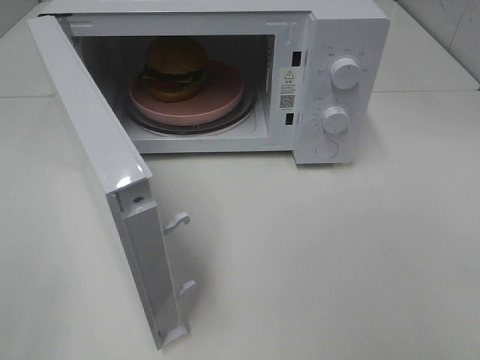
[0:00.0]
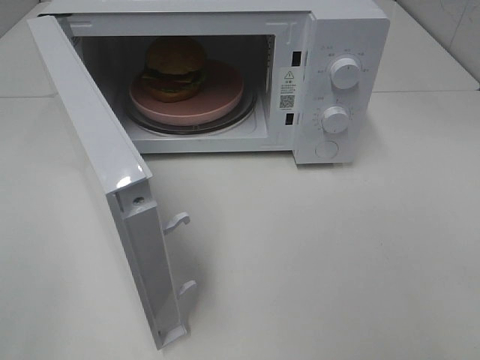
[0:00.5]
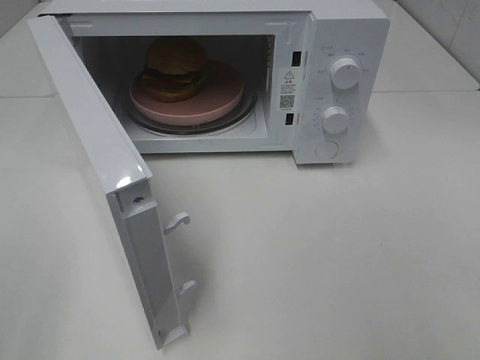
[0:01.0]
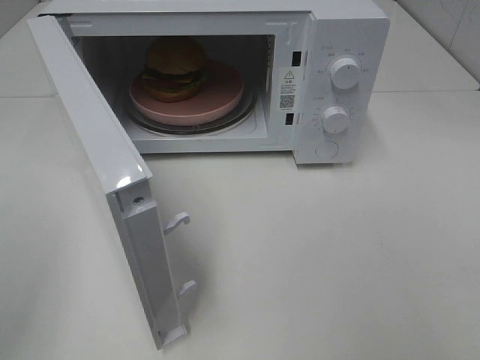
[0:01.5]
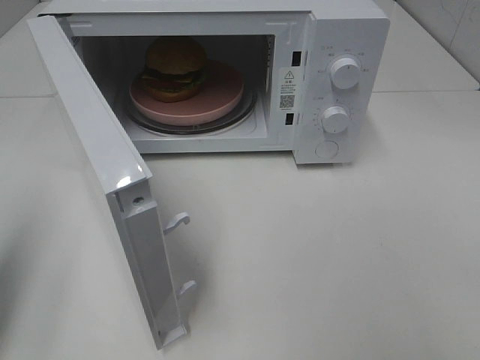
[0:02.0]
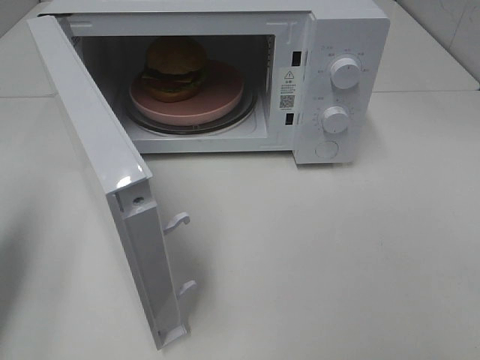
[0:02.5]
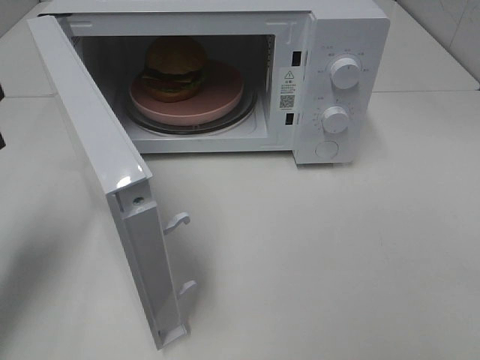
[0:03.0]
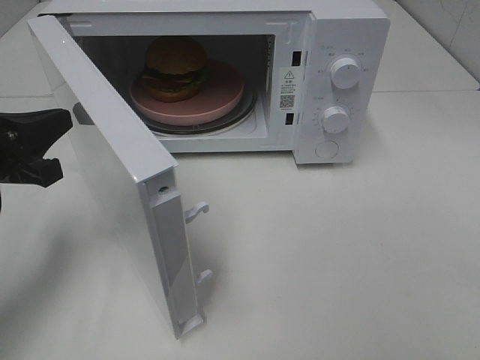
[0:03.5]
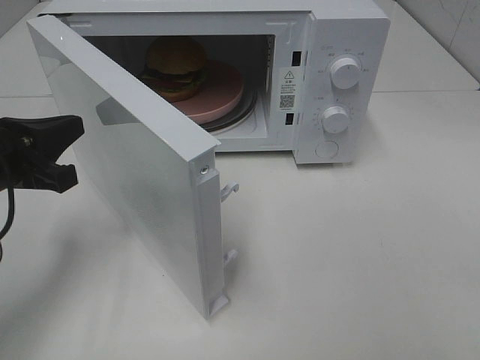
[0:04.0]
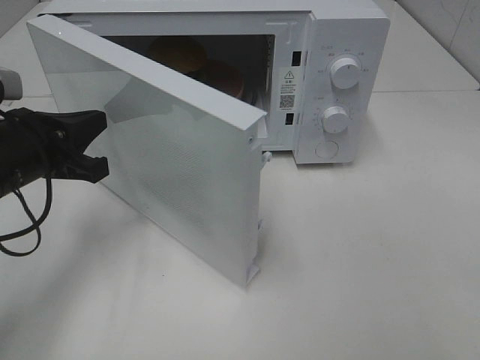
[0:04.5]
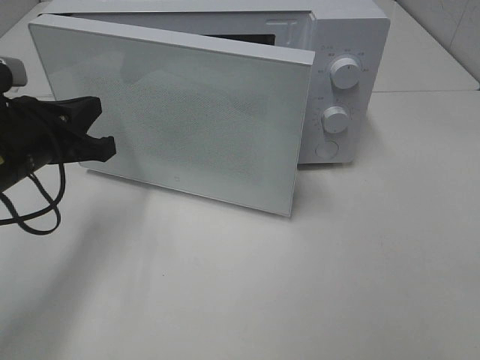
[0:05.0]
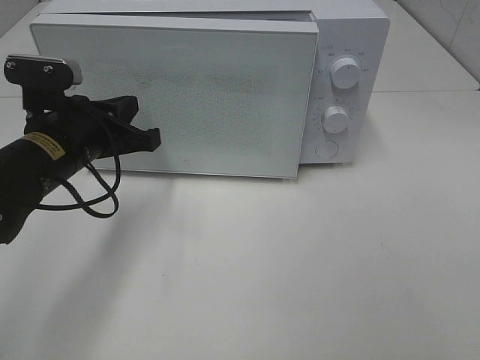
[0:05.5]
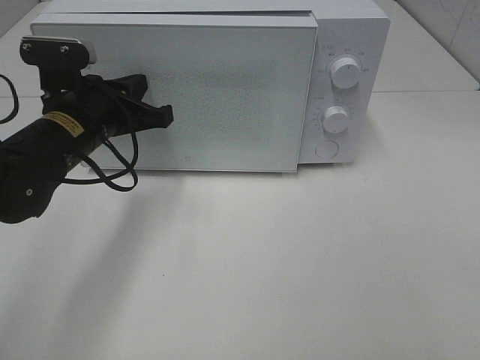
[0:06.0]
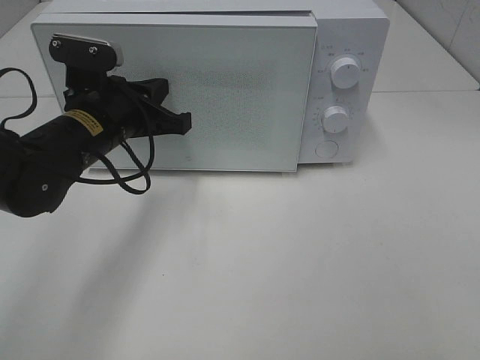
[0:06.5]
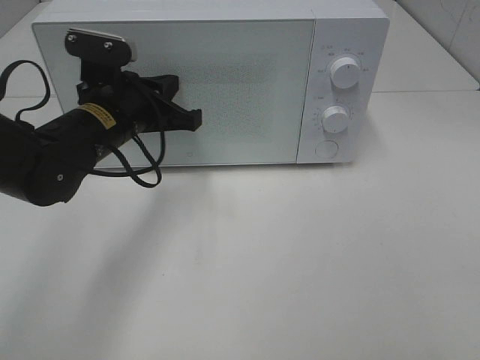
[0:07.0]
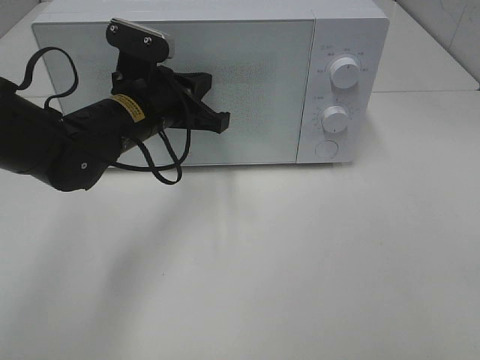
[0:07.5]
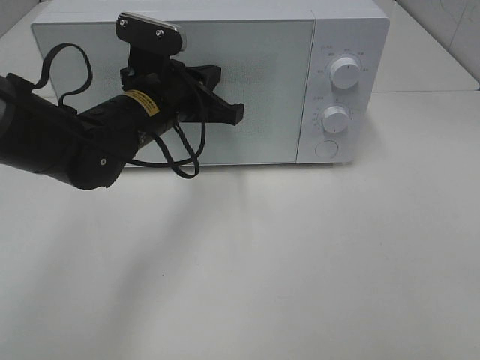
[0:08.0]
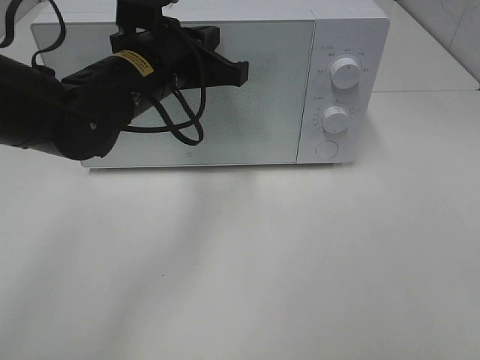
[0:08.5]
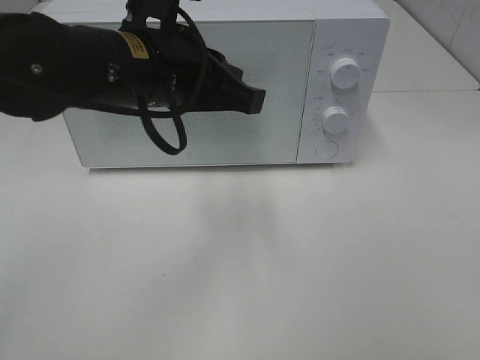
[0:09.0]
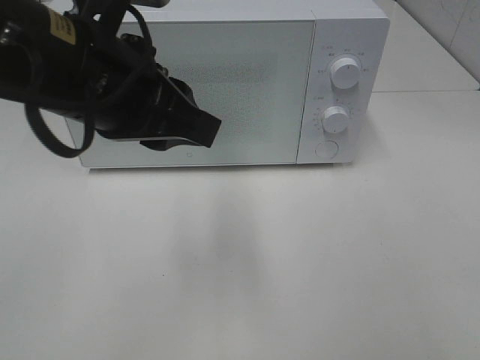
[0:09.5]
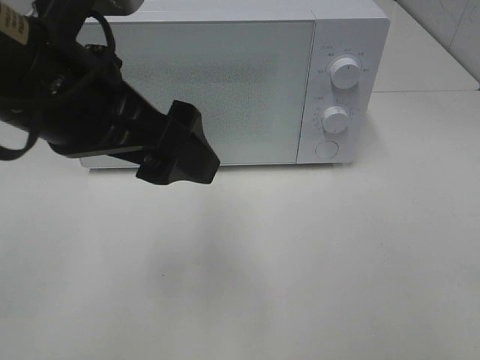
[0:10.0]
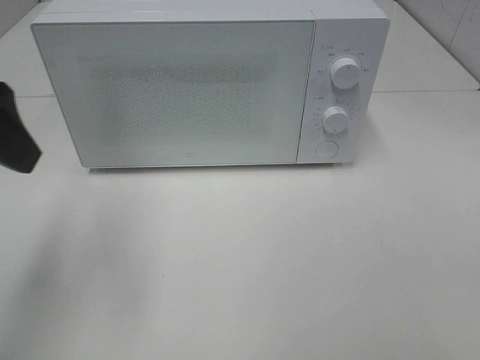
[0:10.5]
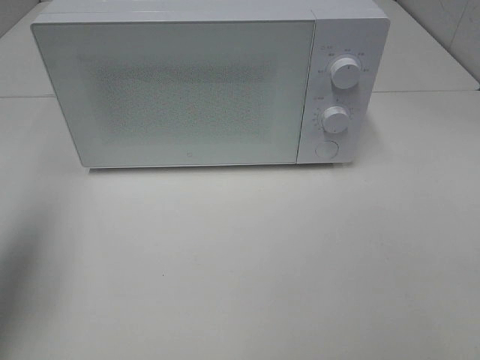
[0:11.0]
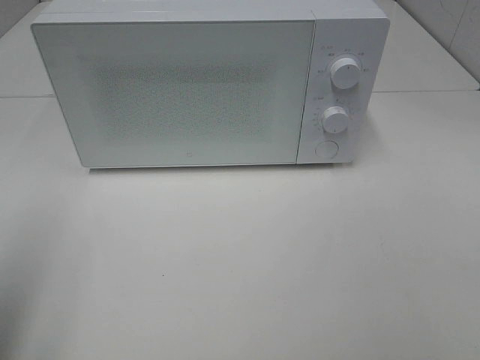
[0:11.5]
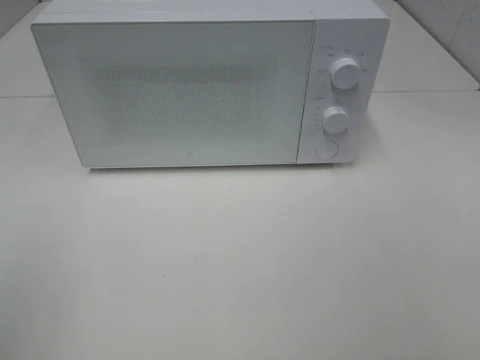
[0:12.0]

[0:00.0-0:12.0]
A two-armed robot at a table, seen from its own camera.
Task of the whole recording: Heat the burger.
Step, 0.0 to 7.0 s: Left hand: close the microwave door.
0.0 to 2.0 s: The left gripper goes about 15 cm forward, and closes up.
2.0 to 4.0 s: The left gripper heads forward, downward and to the right, covering roughly 15 cm.
4.0 to 6.0 s: The left gripper goes about 10 cm forward and to the right.
6.0 to 8.0 s: The left gripper moves to the right, roughly 5 cm.
8.0 to 10.0 s: The left gripper travels backward and upward by roughly 20 cm, and opens its fingers.
10.0 to 12.0 s: The left gripper heads to the left and backward, covering approximately 25 cm.

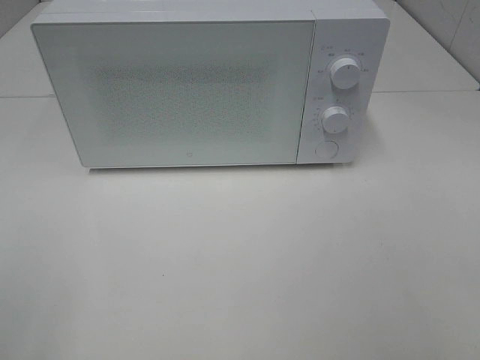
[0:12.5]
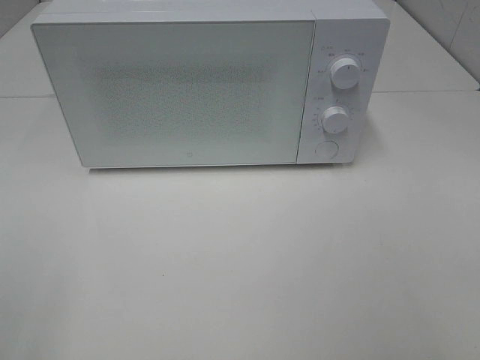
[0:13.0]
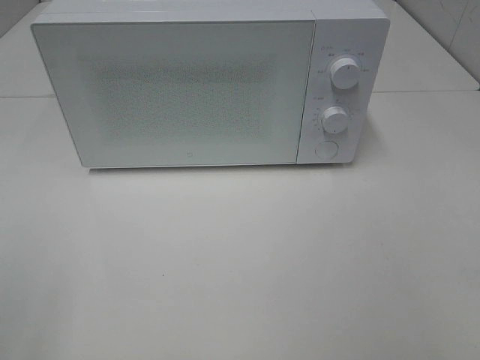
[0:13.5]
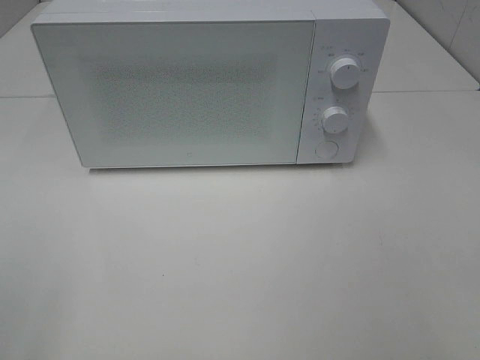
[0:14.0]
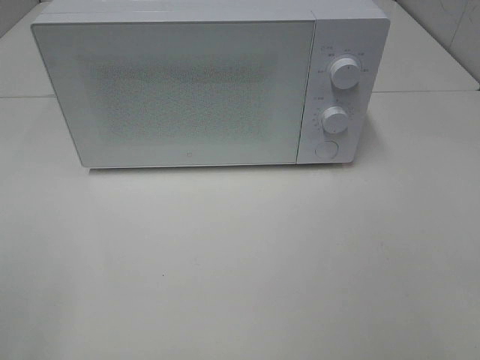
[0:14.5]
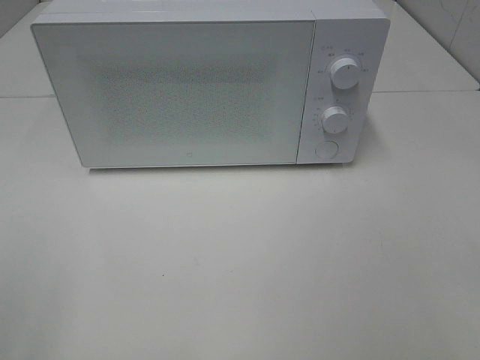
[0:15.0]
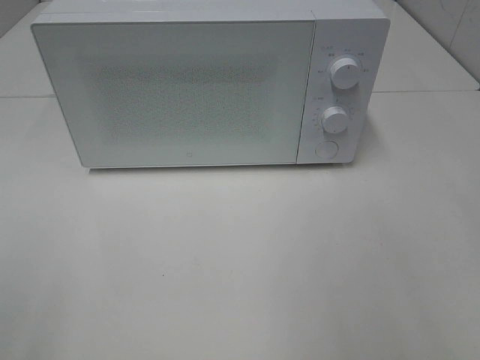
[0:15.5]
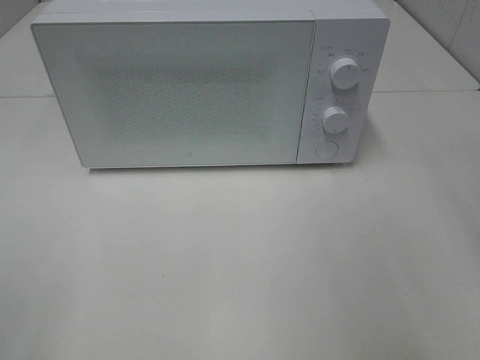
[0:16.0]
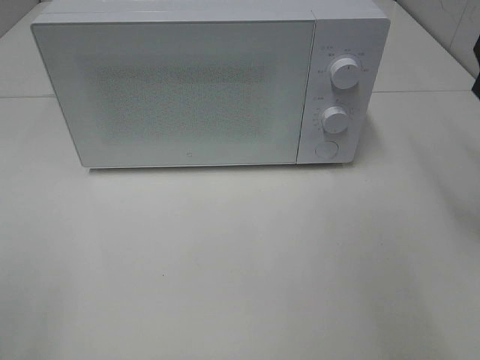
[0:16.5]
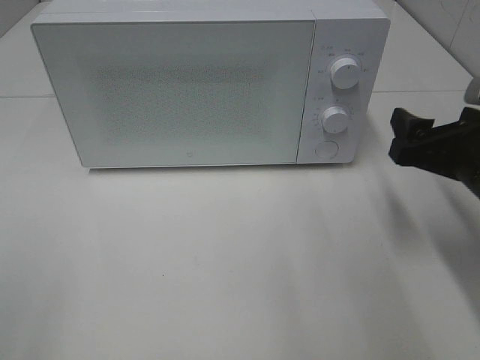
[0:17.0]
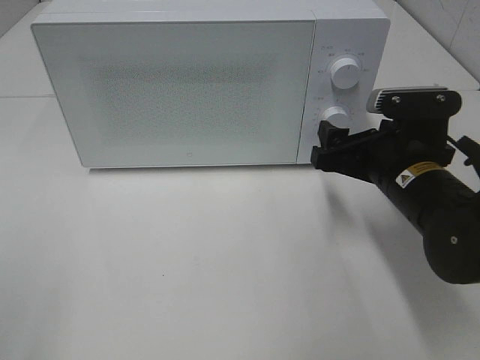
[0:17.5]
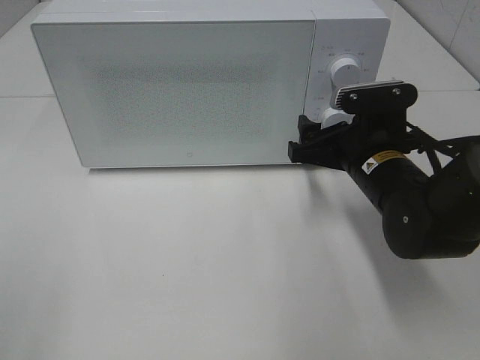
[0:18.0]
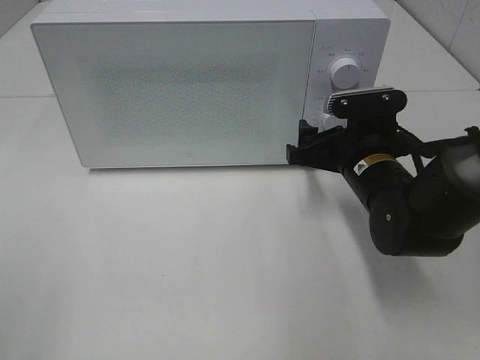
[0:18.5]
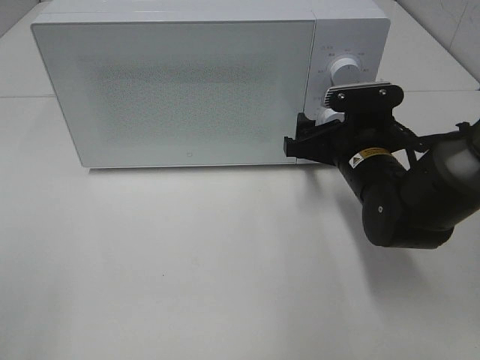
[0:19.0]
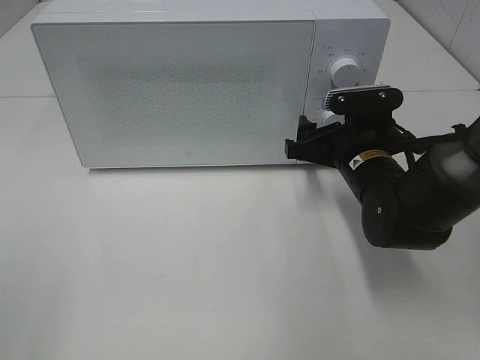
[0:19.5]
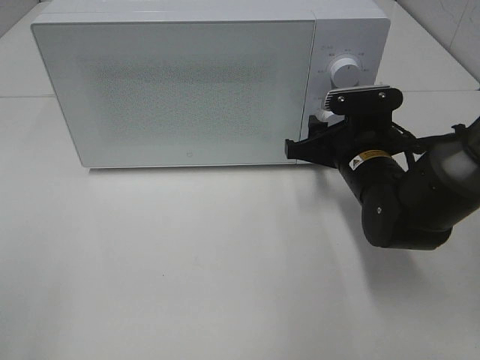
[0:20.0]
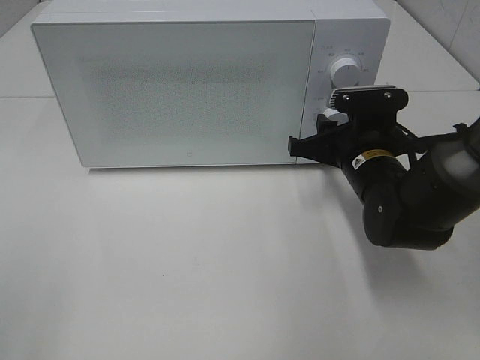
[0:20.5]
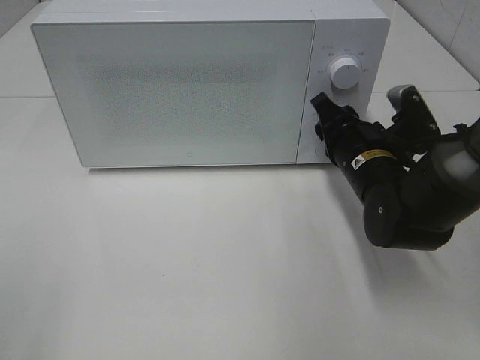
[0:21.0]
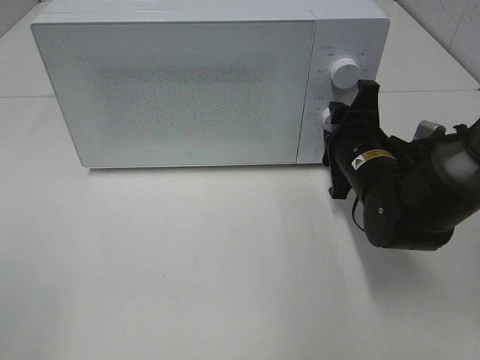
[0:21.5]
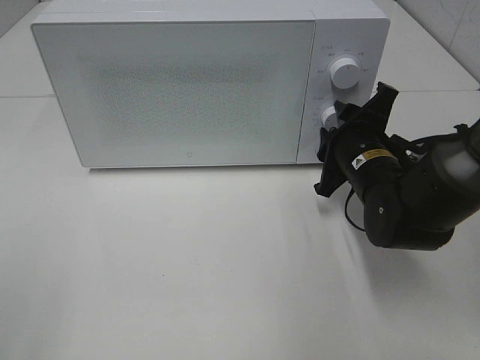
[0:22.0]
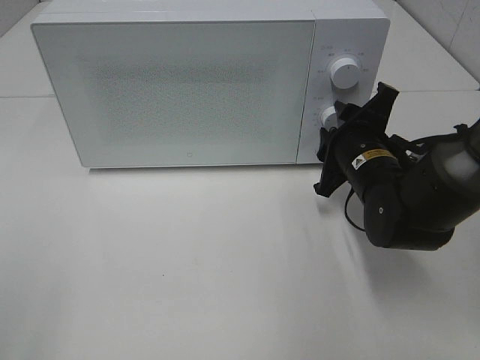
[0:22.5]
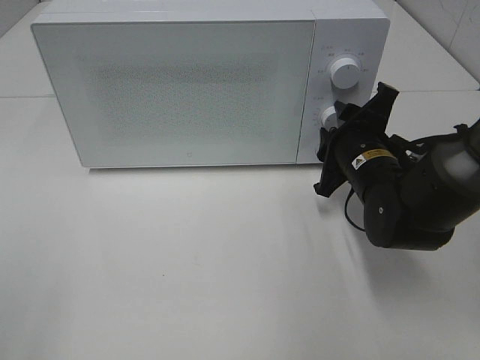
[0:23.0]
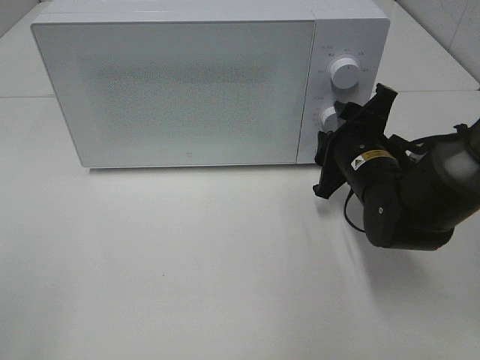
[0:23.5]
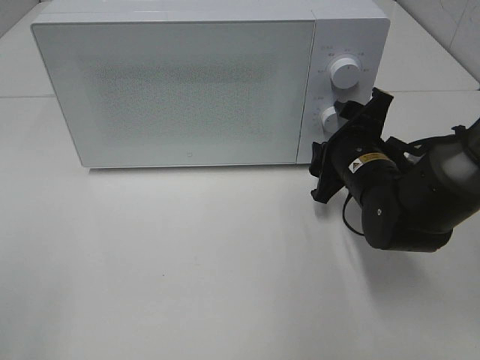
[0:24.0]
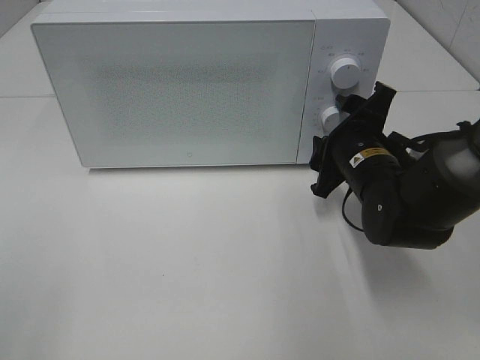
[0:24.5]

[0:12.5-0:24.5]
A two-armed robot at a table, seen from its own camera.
Task of the whole recording: Heat the burger.
Step, 12.5 to 23.5 s: Right hand: twist timer button.
12.5 to 14.5 s: The two grippers keep their place.
14.5 to 16.5 s: The right gripper shifts approximately 20 cm forward.
16.5 to 18.5 s: The right gripper is displaced to the left, downward and forward by some 20 cm.
18.5 to 20.5 s: The right gripper closes its fingers.
22.5 to 24.5 s: Neither gripper changes place.

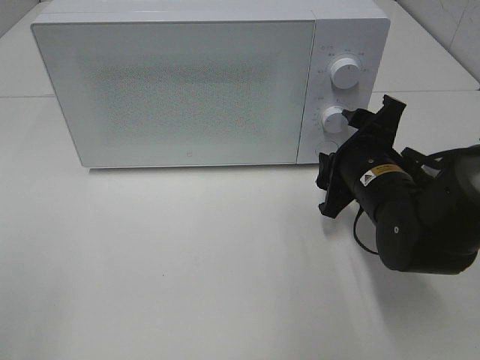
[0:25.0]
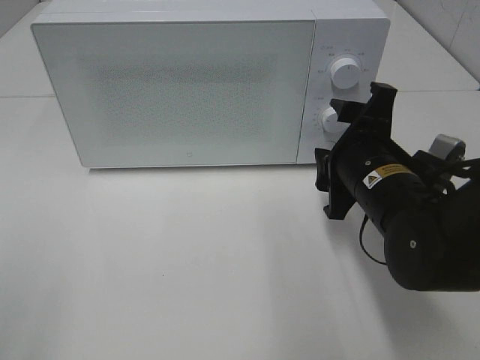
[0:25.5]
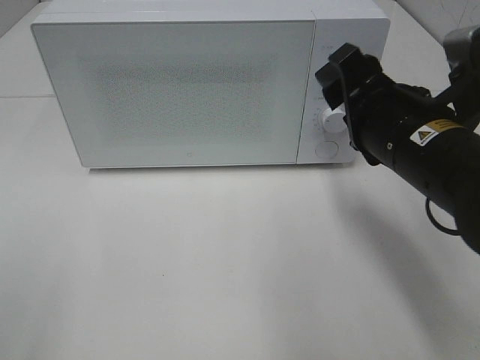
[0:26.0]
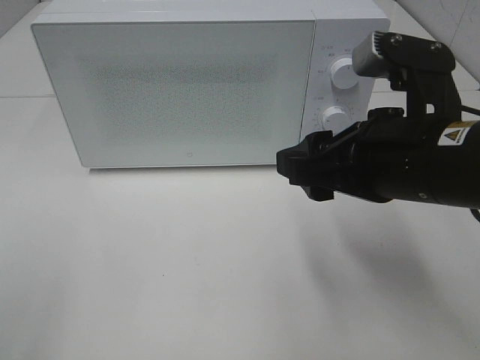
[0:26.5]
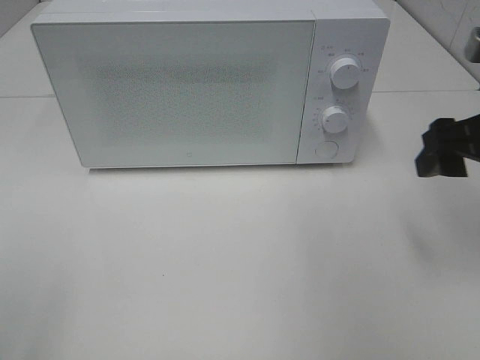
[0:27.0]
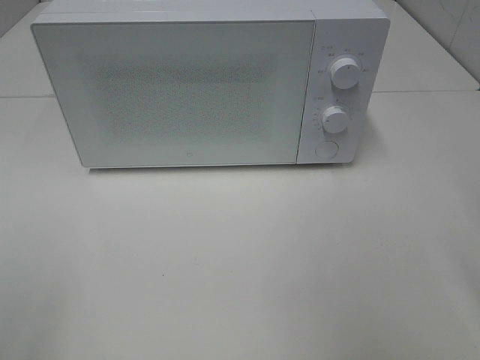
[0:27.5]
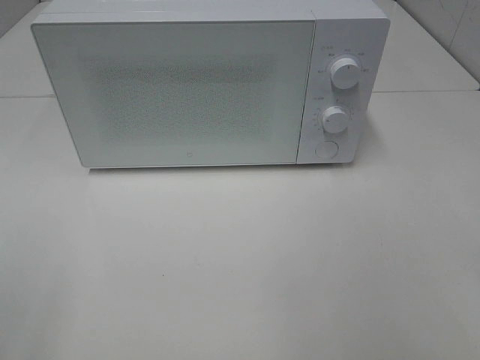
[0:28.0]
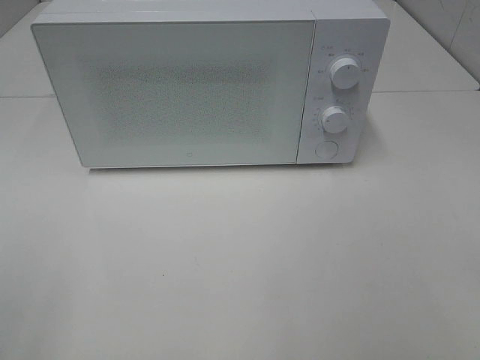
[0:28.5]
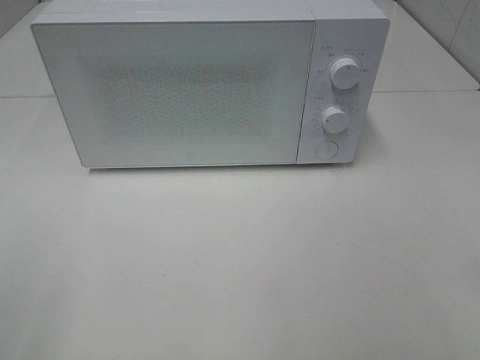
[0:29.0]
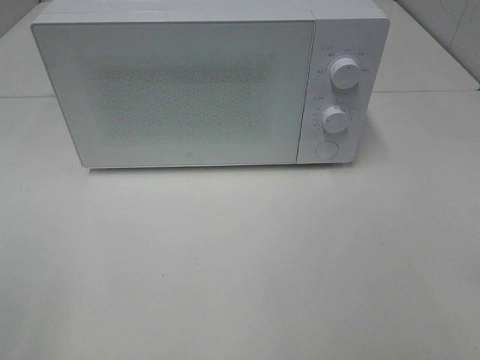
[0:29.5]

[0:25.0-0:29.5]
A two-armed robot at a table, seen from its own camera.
Task of the whole recording: Heat the burger.
25.0 to 27.0 s: The right gripper goes roughly 15 cm upward and to the right.
27.0 to 29.5 s: The right gripper heads backward, covering some 25 cm.
